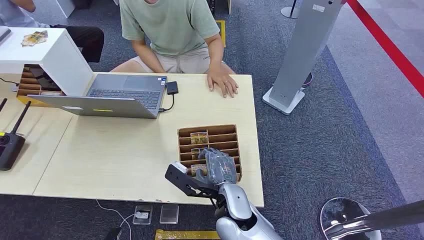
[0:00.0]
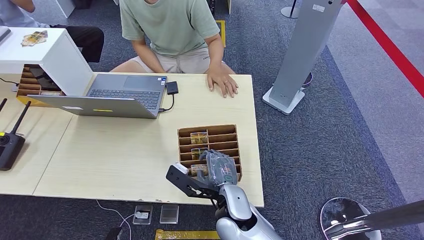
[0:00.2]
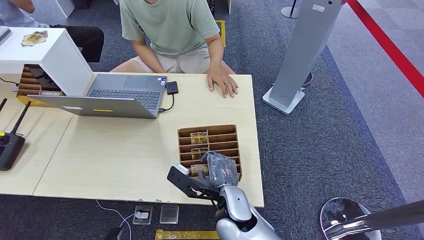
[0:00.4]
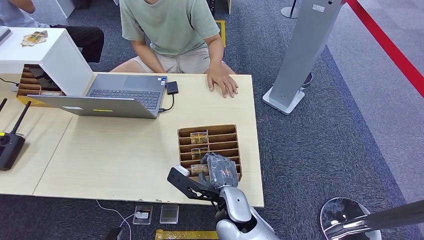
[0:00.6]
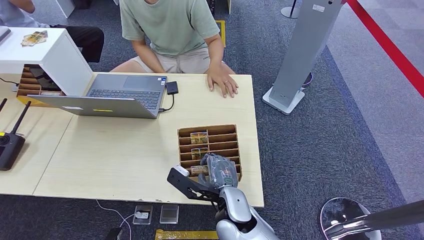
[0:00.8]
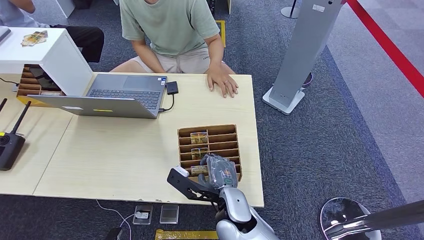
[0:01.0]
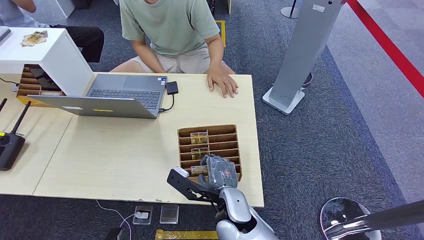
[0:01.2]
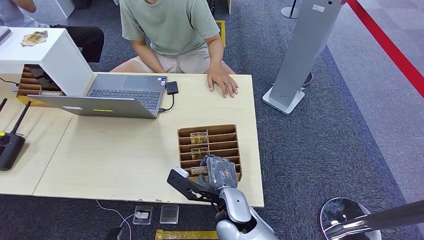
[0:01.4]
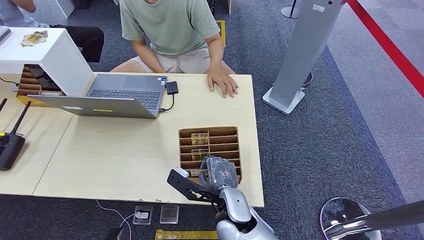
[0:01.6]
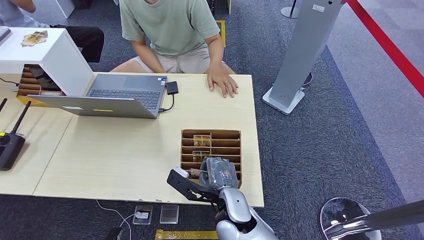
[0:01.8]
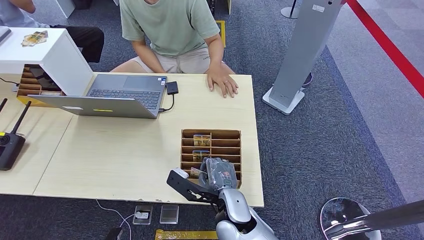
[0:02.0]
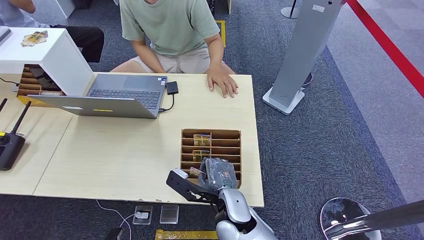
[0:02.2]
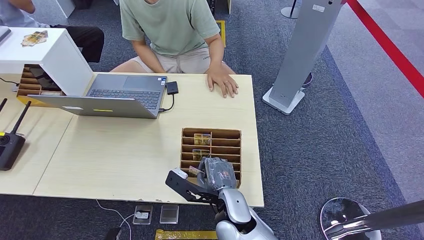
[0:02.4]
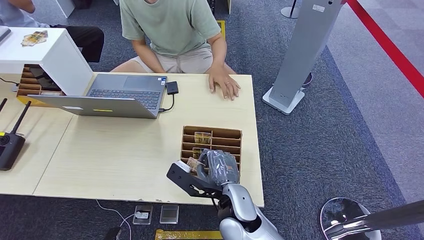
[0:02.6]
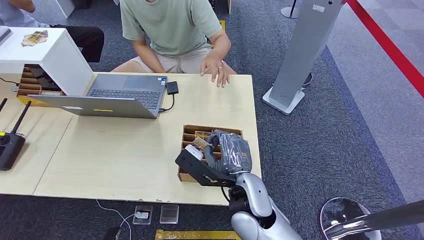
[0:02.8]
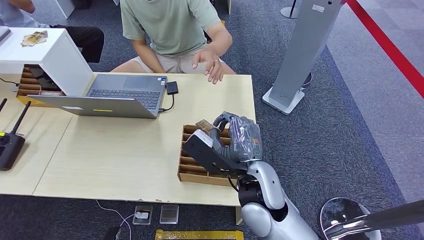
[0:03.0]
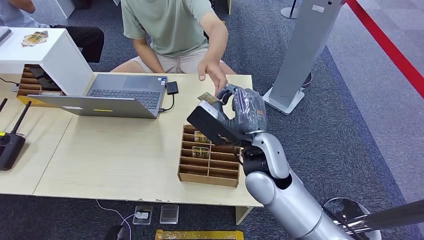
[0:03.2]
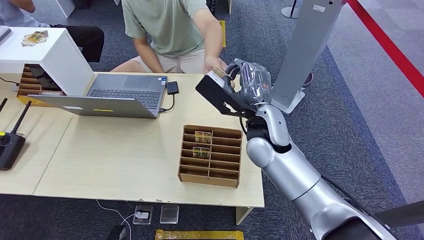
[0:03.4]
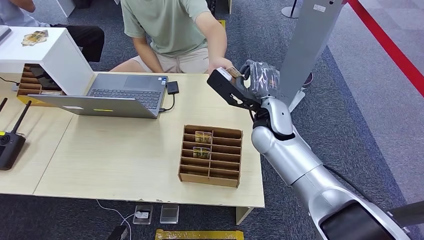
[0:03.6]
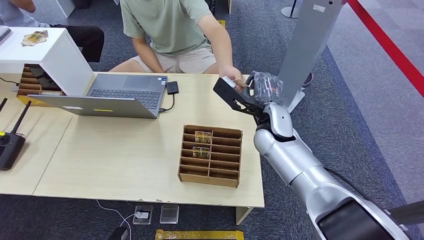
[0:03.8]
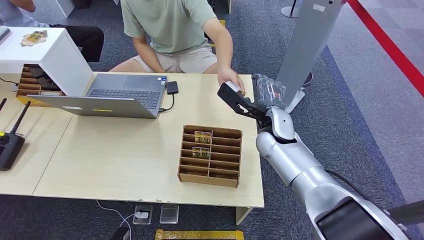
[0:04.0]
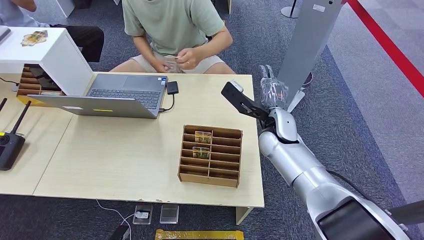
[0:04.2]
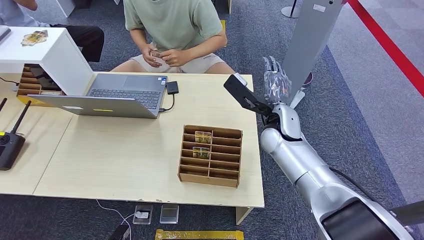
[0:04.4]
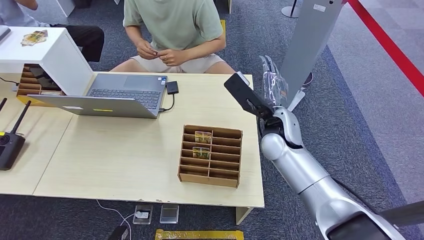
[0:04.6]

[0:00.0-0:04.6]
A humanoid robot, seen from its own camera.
Step, 0:00.0 to 0:02.6: Pick up the key card from the card box.
Step, 0:03.6 to 0:04.6: Hand the key card to the target.
0:01.6 to 0:03.0: The right hand moves upward, about 10 cm.
0:03.0 to 0:04.6: The right hand heads forward, covering about 15 cm.
